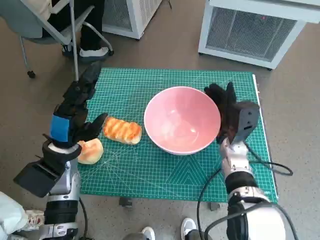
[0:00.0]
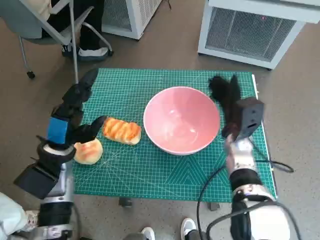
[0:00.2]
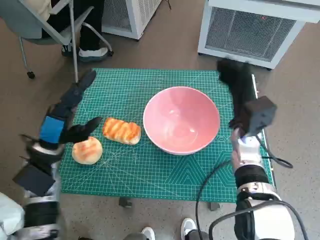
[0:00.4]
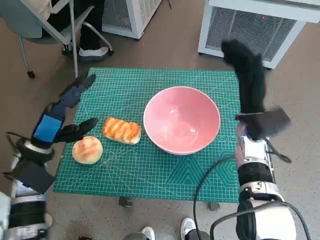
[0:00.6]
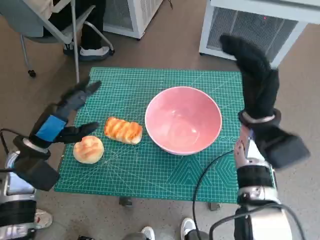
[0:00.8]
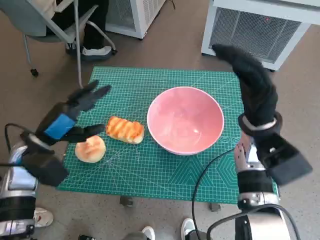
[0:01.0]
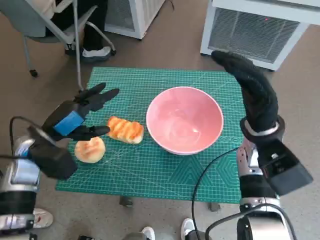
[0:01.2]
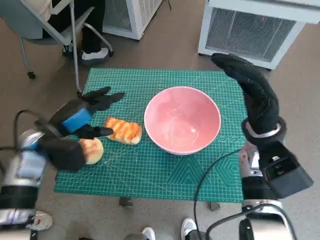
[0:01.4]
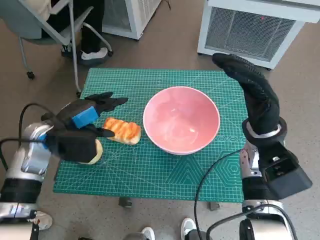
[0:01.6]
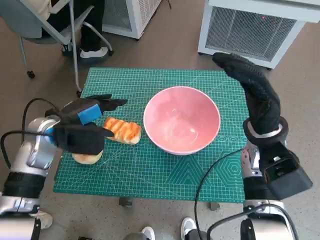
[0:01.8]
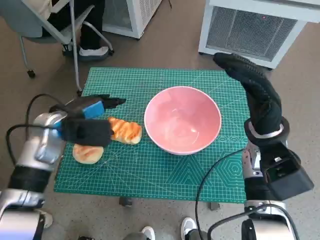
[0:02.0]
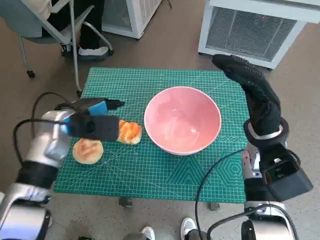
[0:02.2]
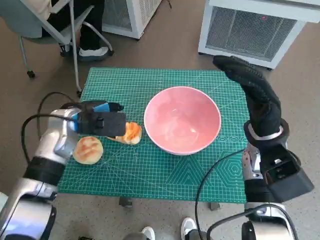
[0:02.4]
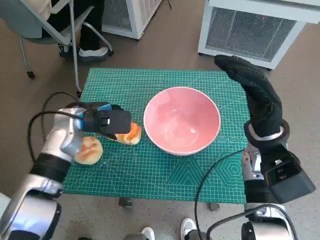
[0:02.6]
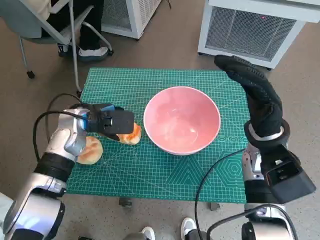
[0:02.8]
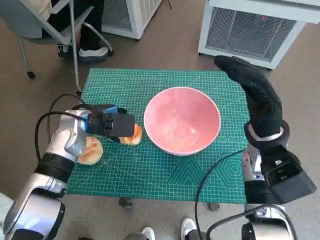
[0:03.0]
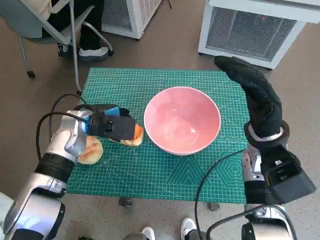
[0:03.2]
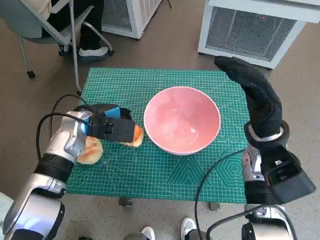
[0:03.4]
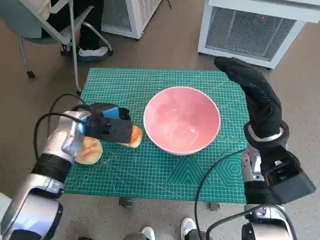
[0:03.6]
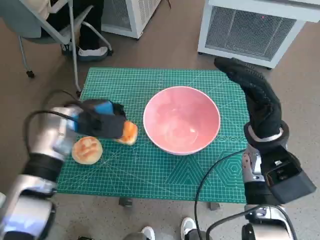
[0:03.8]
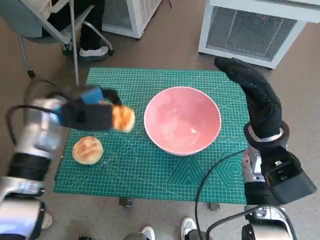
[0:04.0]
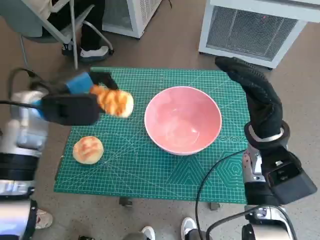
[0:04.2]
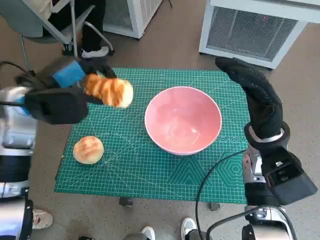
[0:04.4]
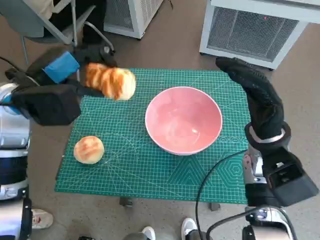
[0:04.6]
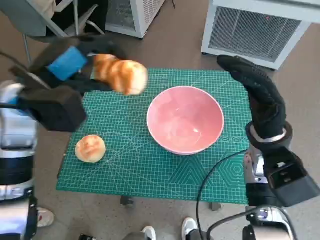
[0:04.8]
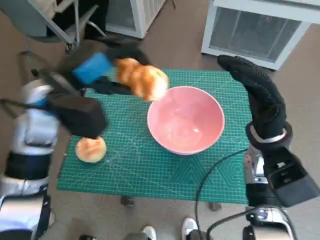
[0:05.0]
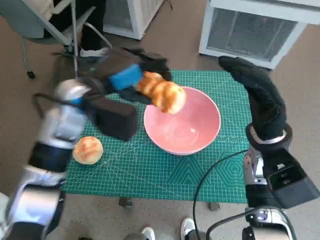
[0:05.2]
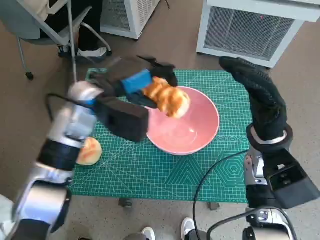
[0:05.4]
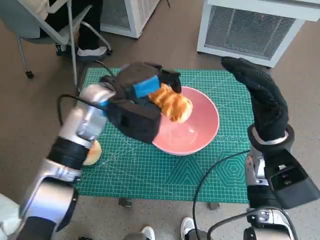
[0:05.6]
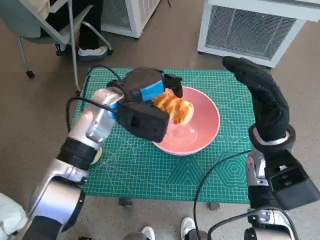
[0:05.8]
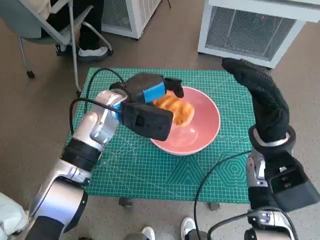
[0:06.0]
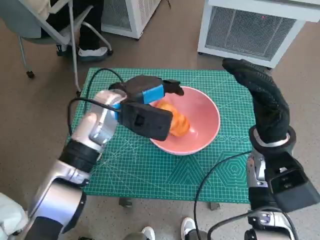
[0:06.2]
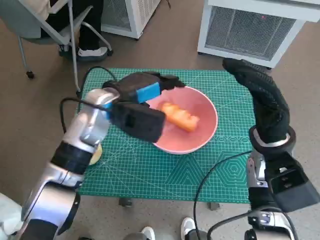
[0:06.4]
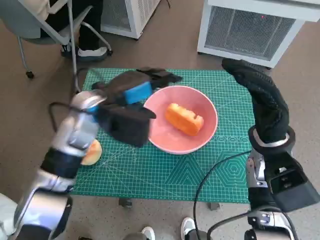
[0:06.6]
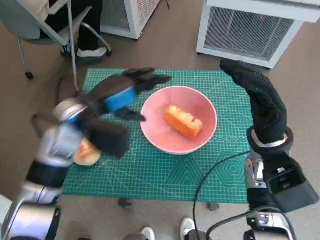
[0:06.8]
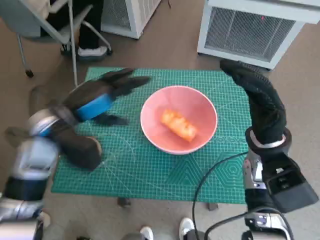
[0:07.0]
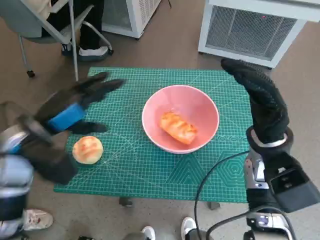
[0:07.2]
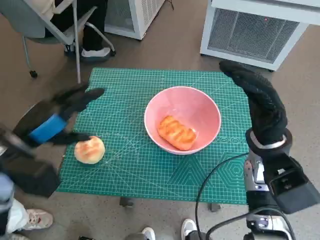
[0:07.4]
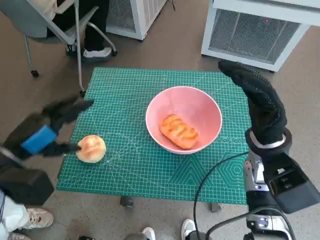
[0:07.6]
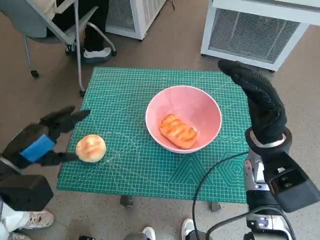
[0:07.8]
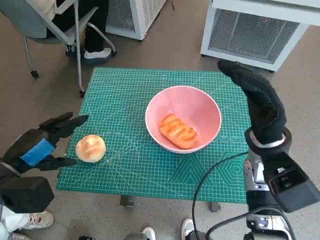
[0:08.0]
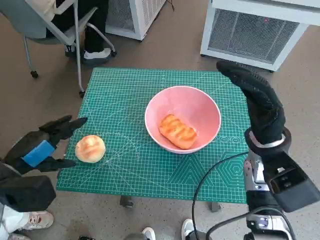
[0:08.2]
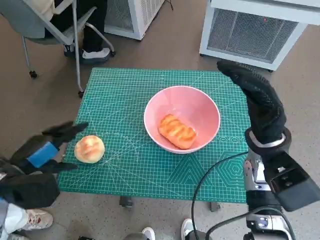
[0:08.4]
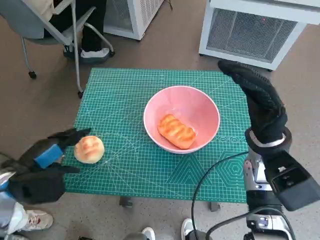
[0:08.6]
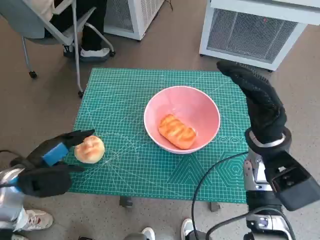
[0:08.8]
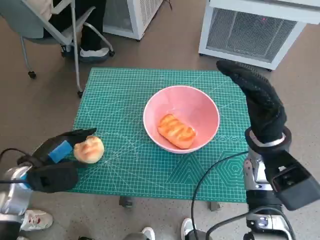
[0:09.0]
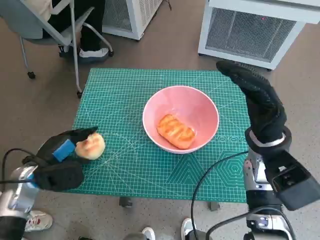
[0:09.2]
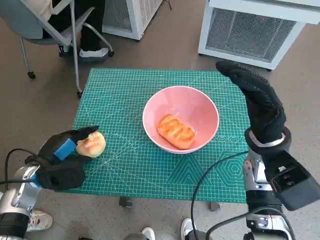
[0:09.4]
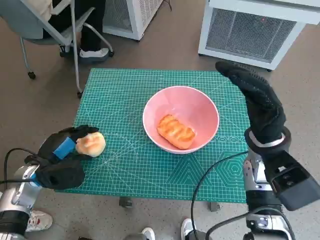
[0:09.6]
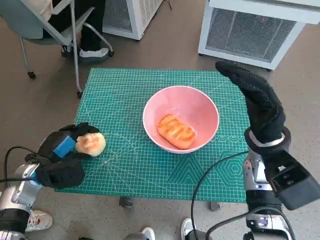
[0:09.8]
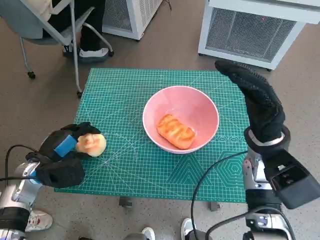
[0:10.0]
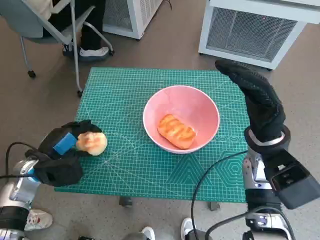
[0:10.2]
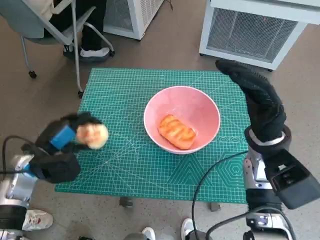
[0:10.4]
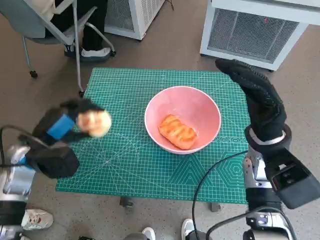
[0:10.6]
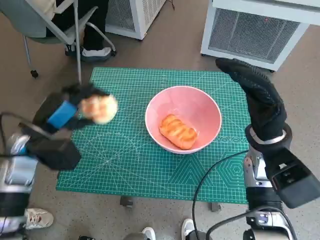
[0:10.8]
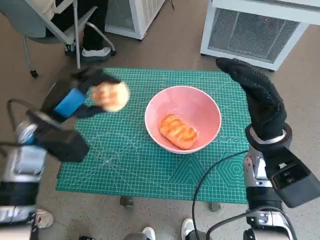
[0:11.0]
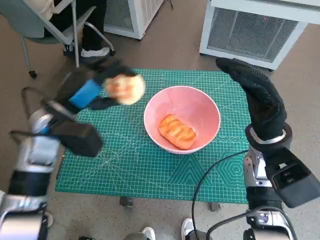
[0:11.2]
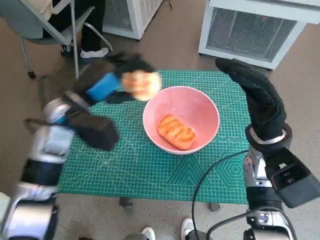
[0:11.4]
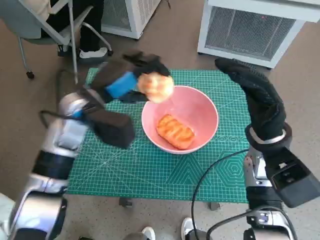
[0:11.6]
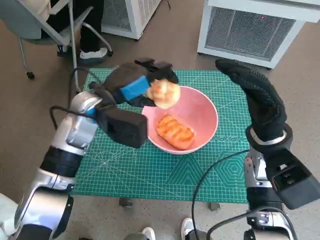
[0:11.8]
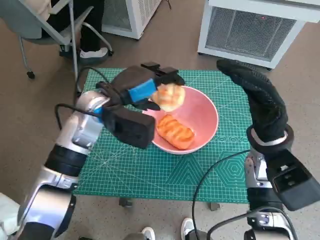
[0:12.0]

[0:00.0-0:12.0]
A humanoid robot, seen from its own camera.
Task of the whole recording: Push the bowl to the center of the table and put the bread into the bowl.
Step, 0:00.6 to 0:03.4: Grasp the long bread with left hand.
Step, 0:03.6 to 0:06.6: Place the long bread in pink bowl with left hand.
Step, 0:06.8 to 0:10.0: Grasp the round bread with left hand.
0:00.0 to 0:01.6: The left hand shifts by about 5 cm. The right hand moves upward, roughly 10 cm.
0:01.6 to 0:03.0: The left hand moves to the right, about 5 cm.
0:03.0 to 0:04.4: The left hand is displaced upward by some 10 cm.
0:04.4 to 0:06.0: The left hand travels to the right by some 15 cm.
0:06.0 to 0:07.6: The left hand heads to the left and backward, covering approximately 20 cm.
0:07.6 to 0:09.0: The left hand travels downward by about 10 cm.
0:09.0 to 0:10.4: The hands stay close to where they were, moving slightly.
0:10.4 to 0:12.0: The left hand travels to the right, upward and forward by some 20 cm.

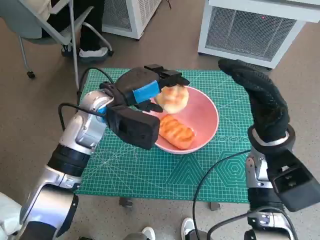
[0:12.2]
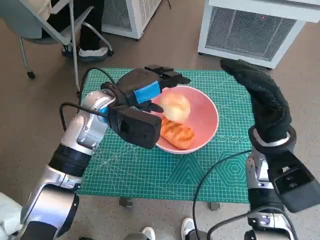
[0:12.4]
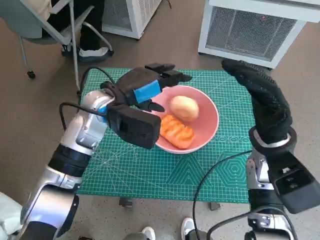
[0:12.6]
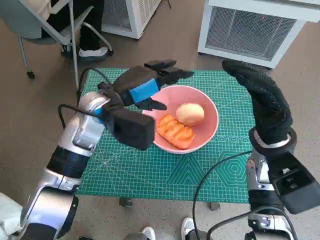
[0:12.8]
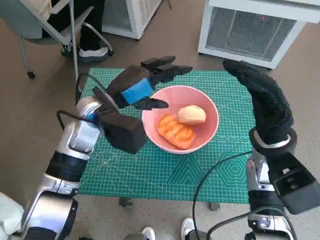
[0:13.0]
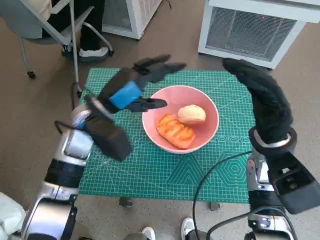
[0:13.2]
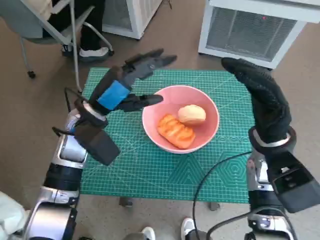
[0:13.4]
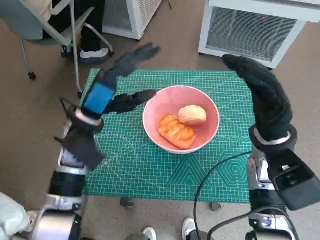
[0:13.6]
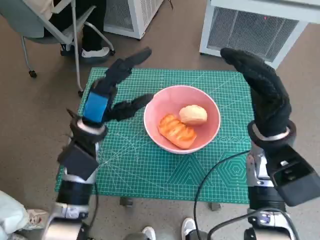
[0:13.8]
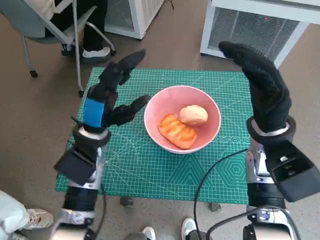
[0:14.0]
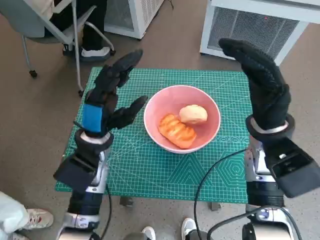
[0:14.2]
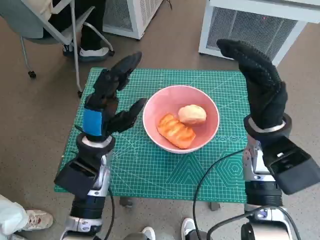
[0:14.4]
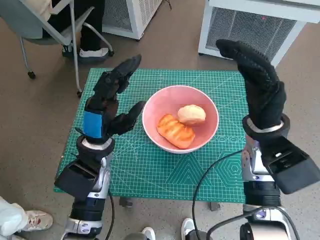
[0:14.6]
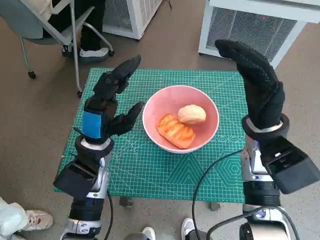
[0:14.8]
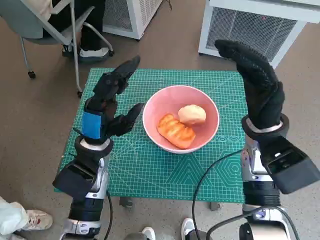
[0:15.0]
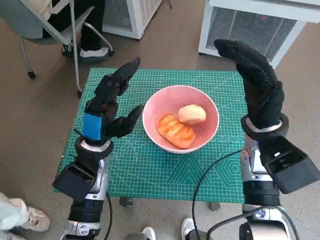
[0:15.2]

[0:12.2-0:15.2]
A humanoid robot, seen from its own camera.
Task of the whole recording: Push the bowl to the center of the table and put the bread into the bowl.
0:12.2 to 0:13.8: The left hand changes place by approximately 5 cm.

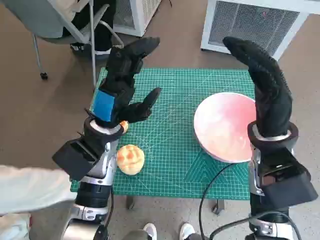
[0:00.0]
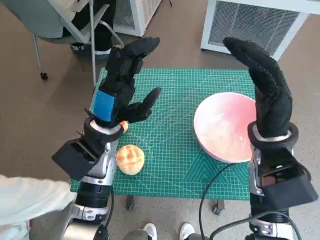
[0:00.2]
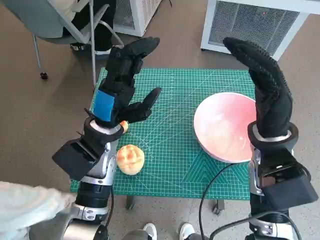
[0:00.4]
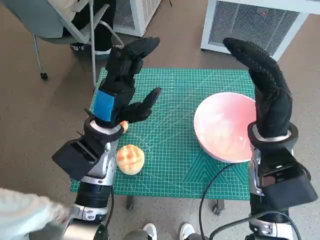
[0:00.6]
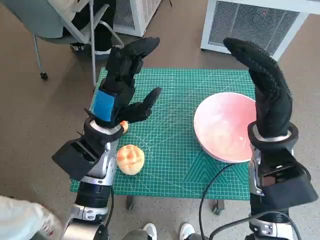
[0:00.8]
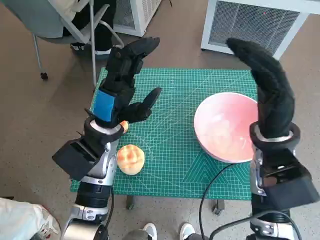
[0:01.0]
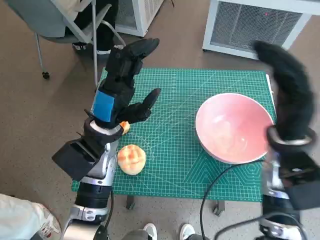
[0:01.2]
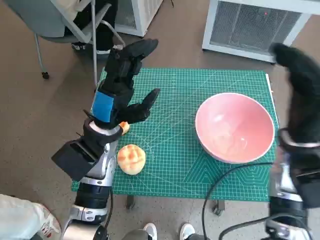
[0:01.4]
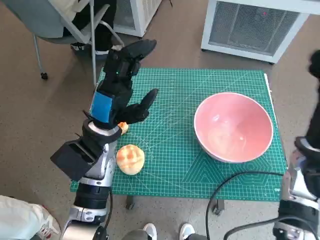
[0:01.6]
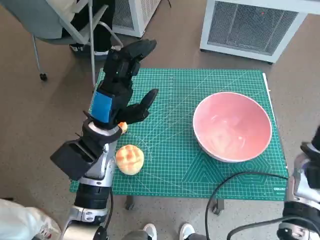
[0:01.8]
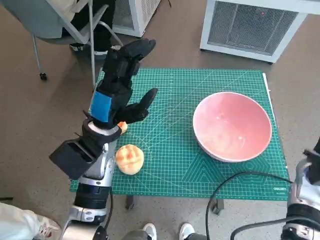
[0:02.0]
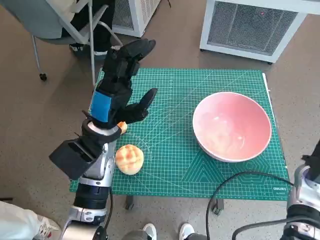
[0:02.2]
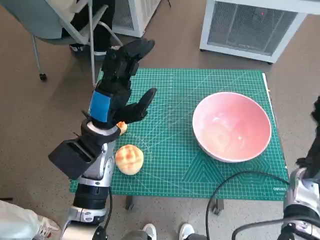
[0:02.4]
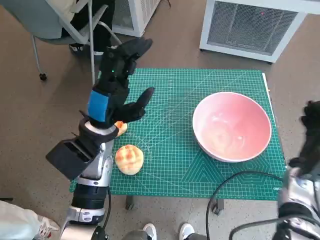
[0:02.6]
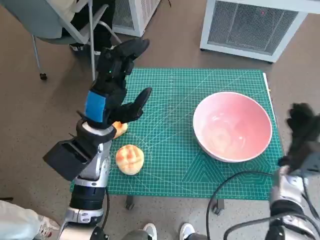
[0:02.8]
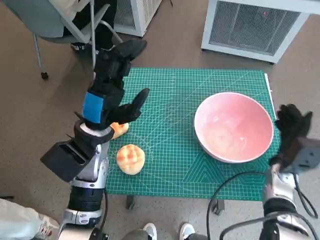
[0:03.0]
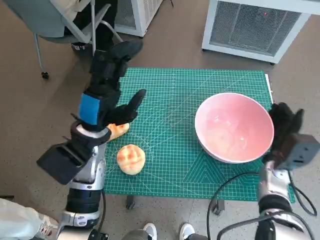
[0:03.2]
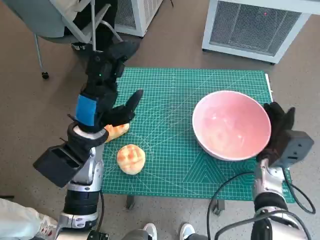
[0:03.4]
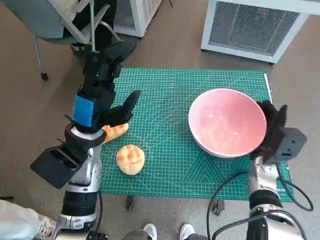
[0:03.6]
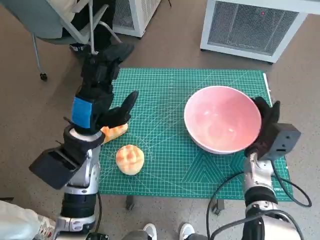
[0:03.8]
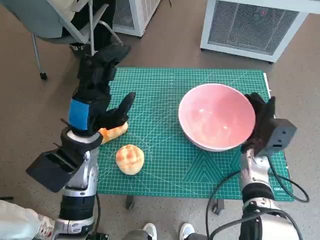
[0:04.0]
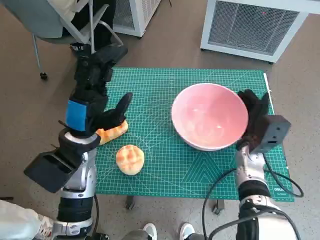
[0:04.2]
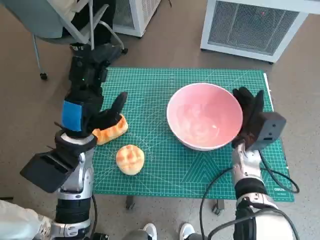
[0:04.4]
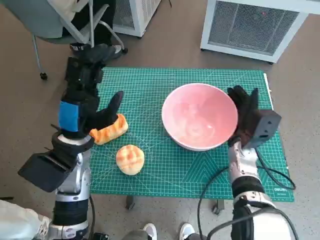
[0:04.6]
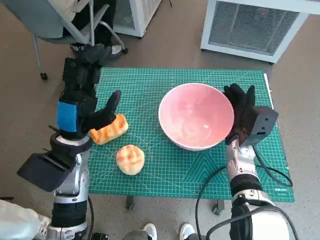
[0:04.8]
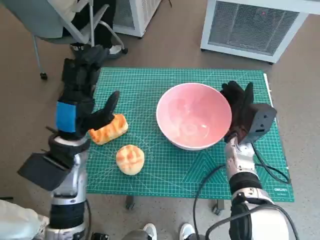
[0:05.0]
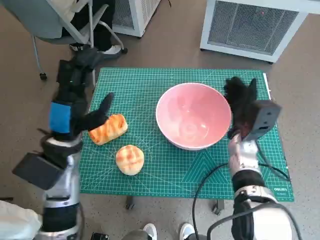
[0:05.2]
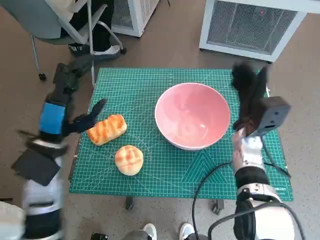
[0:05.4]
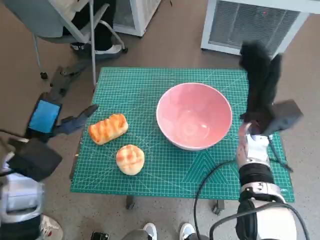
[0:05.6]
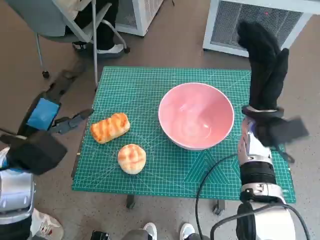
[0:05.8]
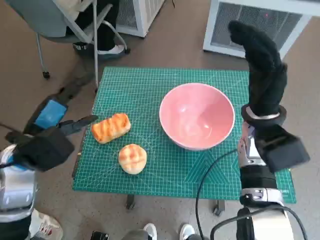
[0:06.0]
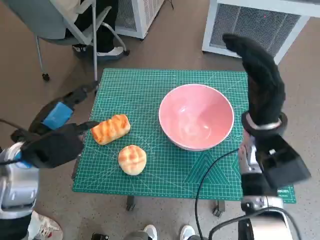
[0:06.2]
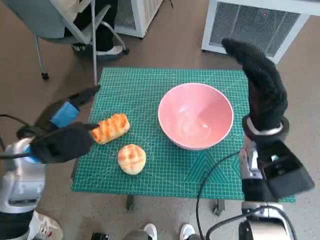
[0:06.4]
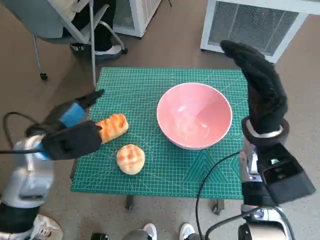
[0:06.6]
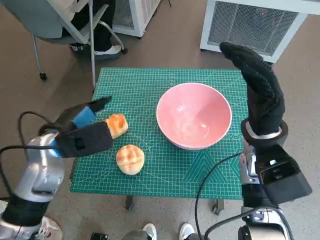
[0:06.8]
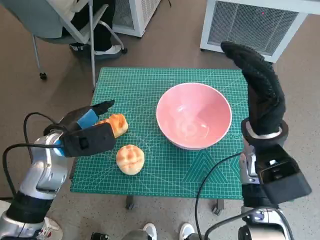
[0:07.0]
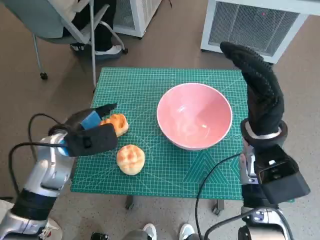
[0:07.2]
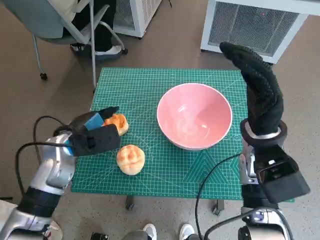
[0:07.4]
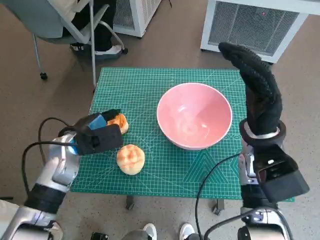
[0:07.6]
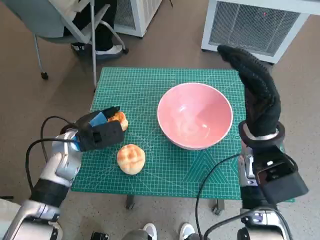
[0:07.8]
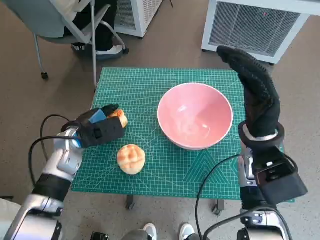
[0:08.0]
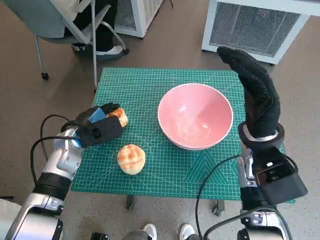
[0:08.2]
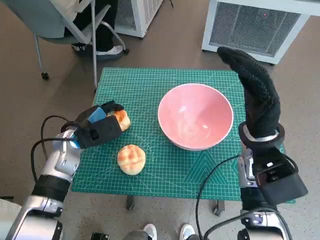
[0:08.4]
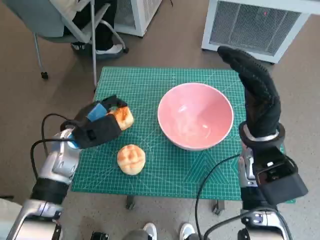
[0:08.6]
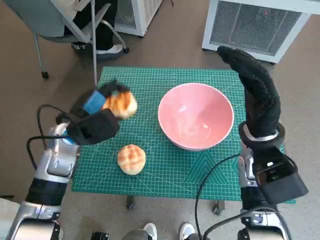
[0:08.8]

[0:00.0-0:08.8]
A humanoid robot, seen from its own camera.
Task of the whole recording: Push the bowl to the center of the table and put the bread into the bowl.
Step, 0:00.0 to 0:05.6: Move the pink bowl to the center of table with right hand.
Step, 0:05.8 to 0:07.8: Grasp the long bread with left hand.
0:01.4 to 0:03.0: The right hand heads downward, covering roughly 15 cm.
0:03.0 to 0:04.4: The right hand moves to the left, approximately 10 cm.
0:04.4 to 0:05.8: The left hand shifts some 5 cm to the left, while the right hand travels upward by approximately 10 cm.
0:05.8 to 0:07.4: The left hand is displaced downward and forward by roughly 10 cm.
